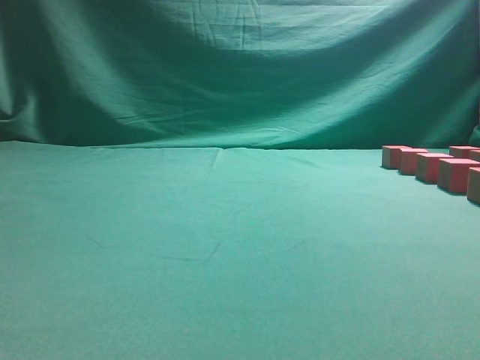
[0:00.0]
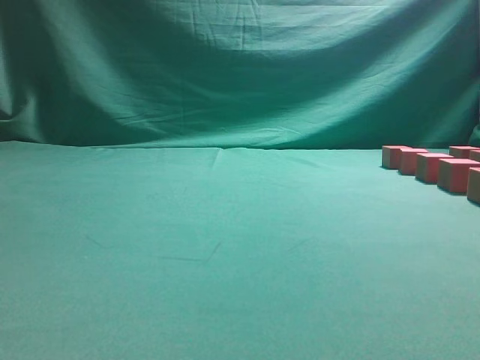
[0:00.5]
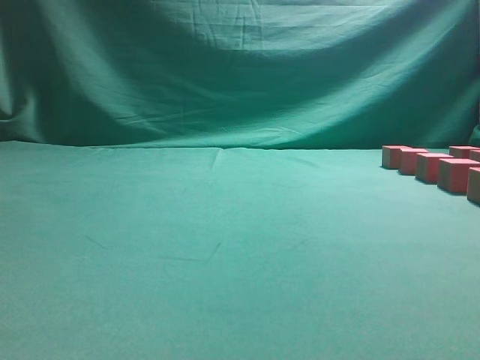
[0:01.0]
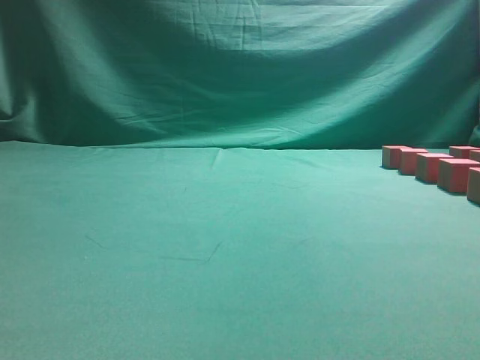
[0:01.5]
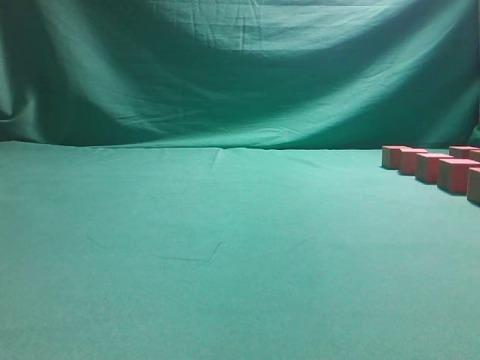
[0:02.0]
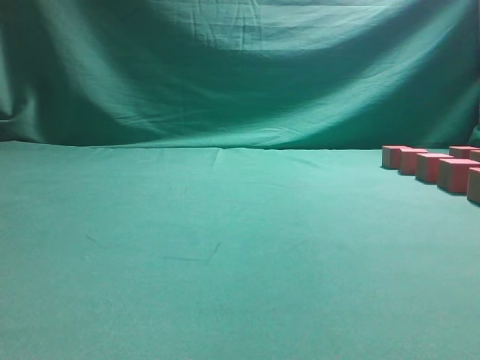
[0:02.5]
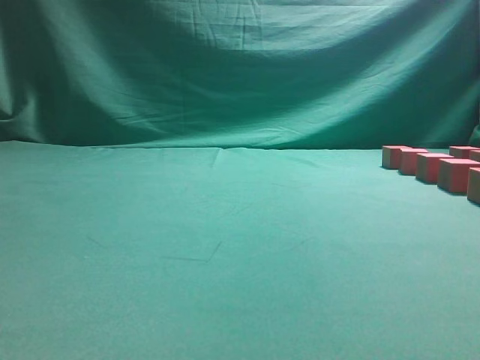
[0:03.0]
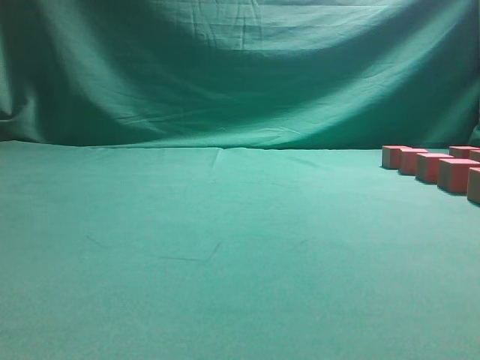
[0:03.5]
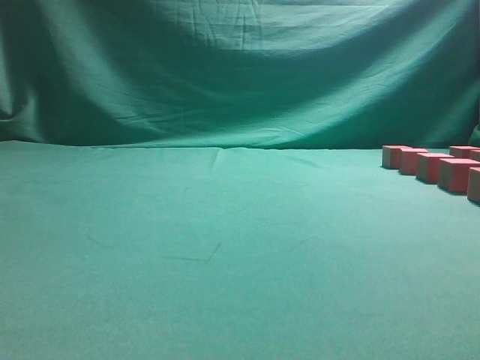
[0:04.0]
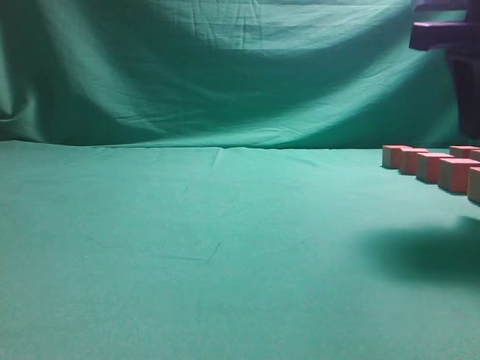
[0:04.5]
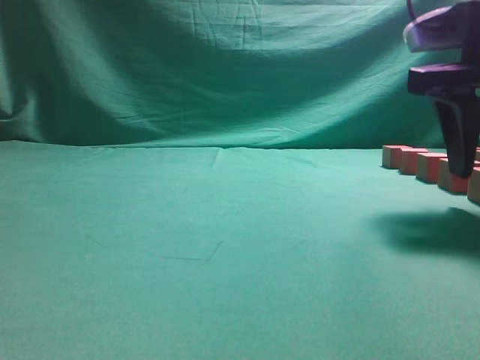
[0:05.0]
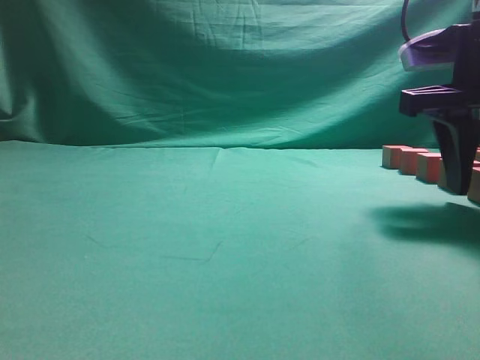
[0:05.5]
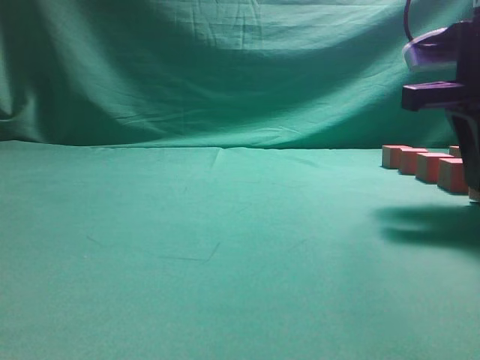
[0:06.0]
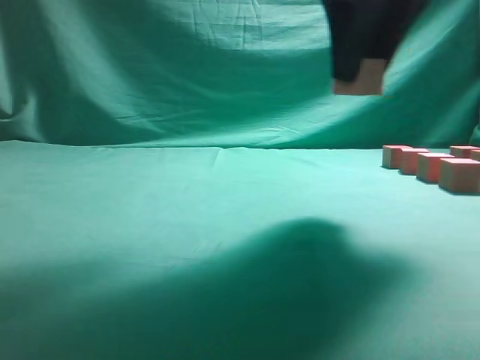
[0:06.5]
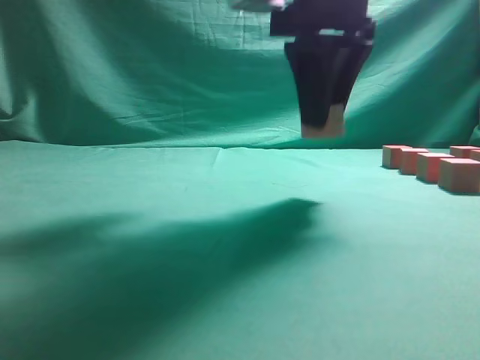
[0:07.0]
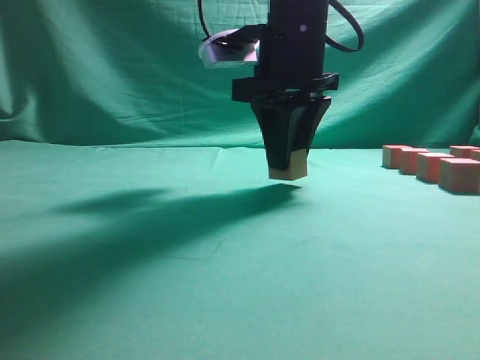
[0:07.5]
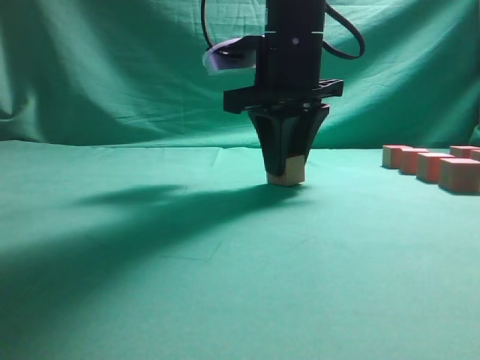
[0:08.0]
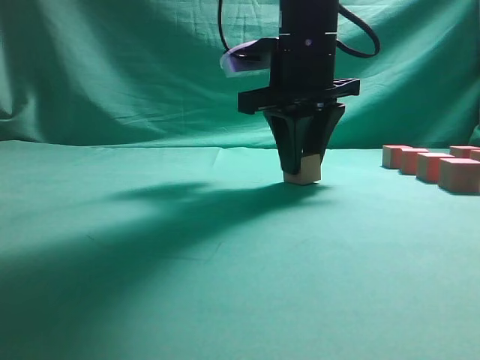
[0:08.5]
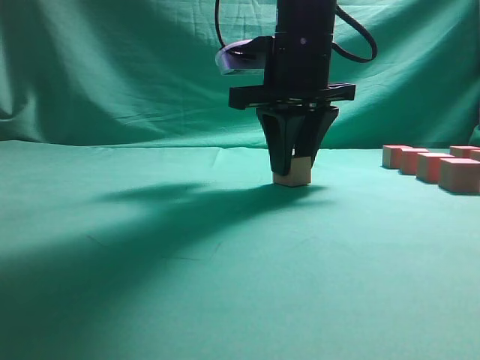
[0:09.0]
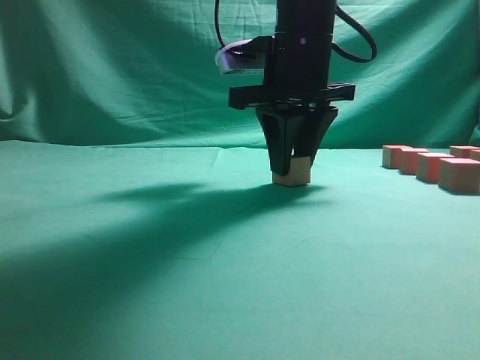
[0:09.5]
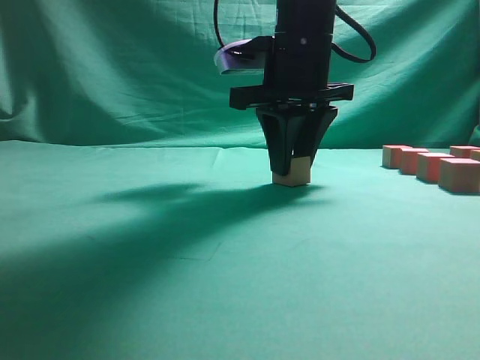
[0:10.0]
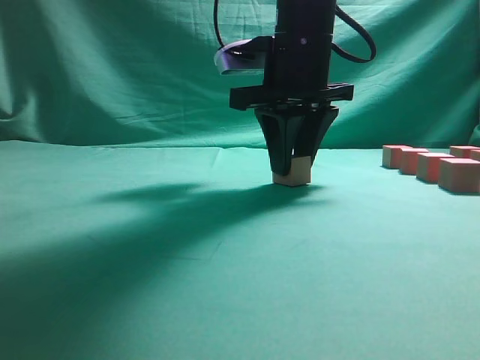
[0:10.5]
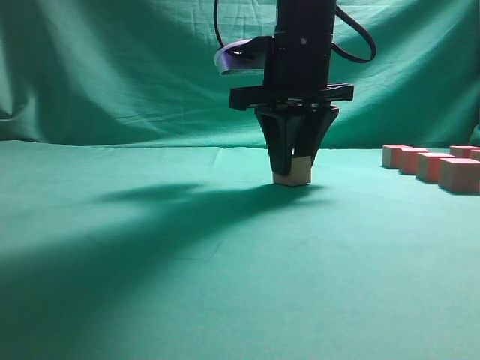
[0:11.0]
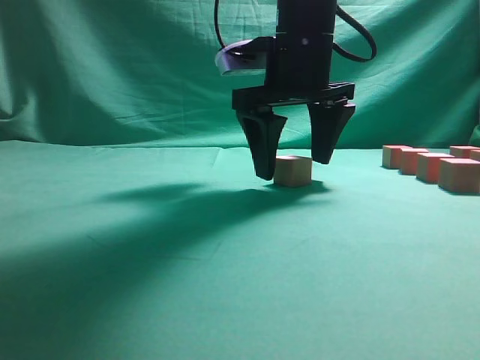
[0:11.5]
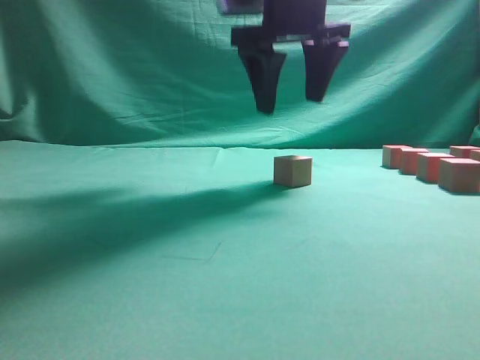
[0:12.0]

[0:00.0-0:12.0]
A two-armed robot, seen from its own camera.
Task of the whole recording: pick up the multiple cubes in two columns one by one and place them in another position on the table.
Step, 0:00.0 to 0:06.0: Pick up the block on the table.
0:04.0 to 0:06.0: The right gripper shifts about 10 cm forward and downward, and opens.
0:06.0 to 0:08.0: The right gripper is displaced to the left and forward by roughly 15 cm.
0:08.0 to 0:10.0: There are only small adjustments of the grippers.
0:10.0 to 0:12.0: The right gripper shifts approximately 5 cm upward, and opens up.

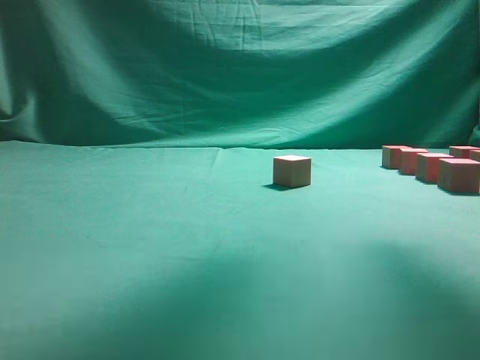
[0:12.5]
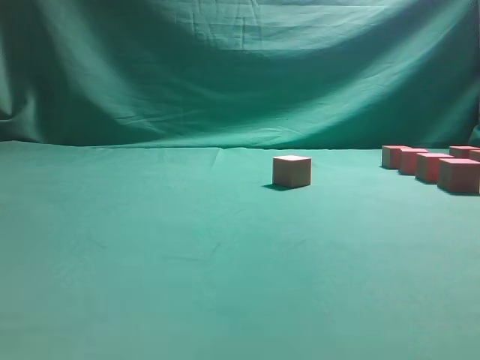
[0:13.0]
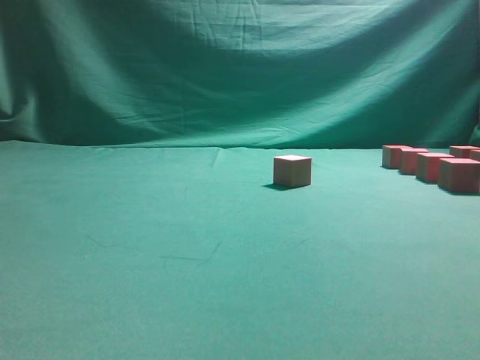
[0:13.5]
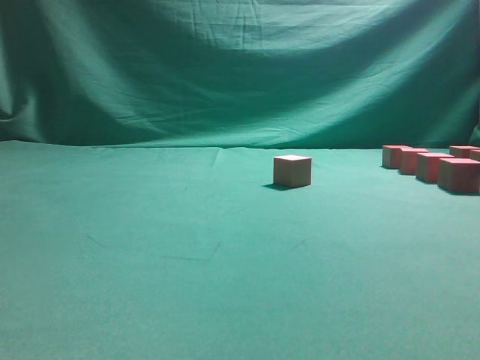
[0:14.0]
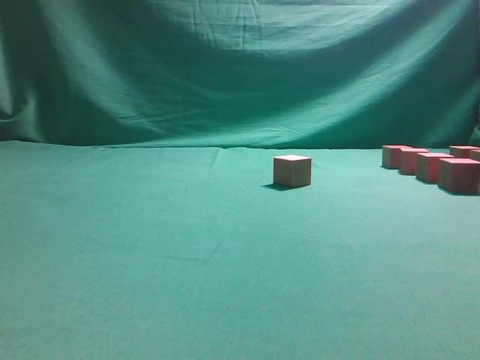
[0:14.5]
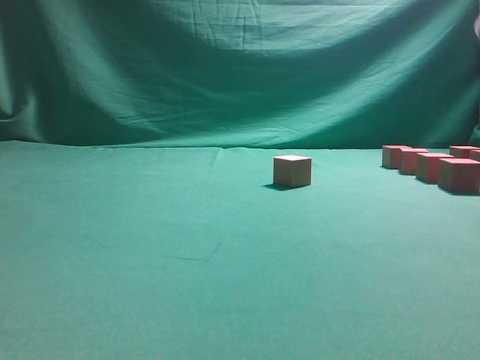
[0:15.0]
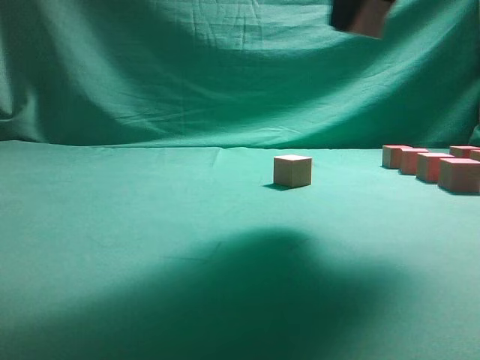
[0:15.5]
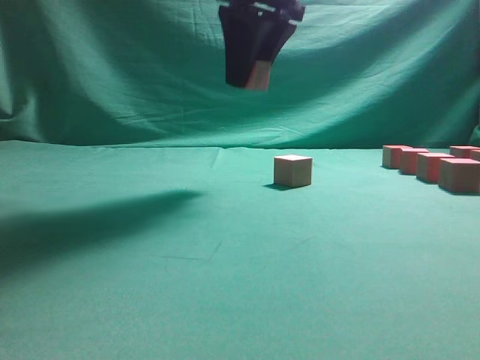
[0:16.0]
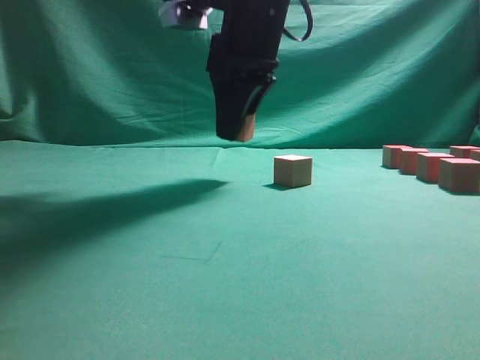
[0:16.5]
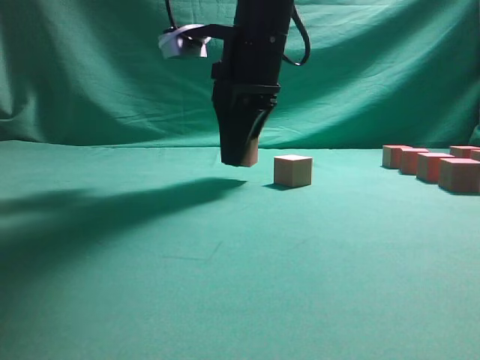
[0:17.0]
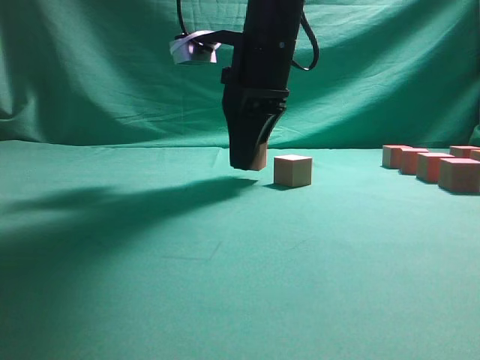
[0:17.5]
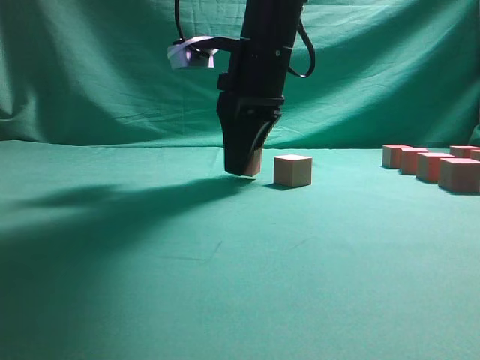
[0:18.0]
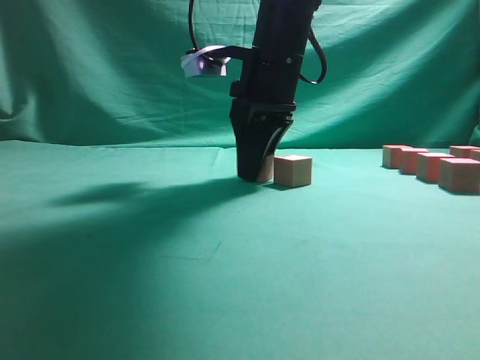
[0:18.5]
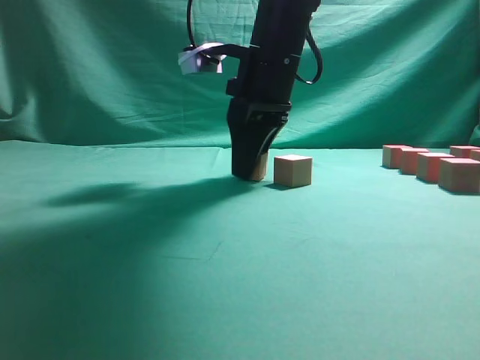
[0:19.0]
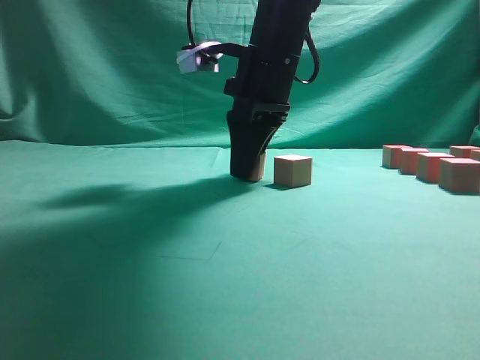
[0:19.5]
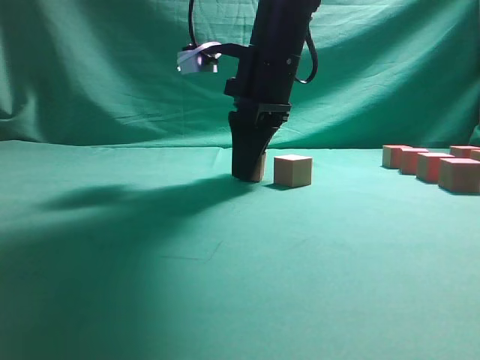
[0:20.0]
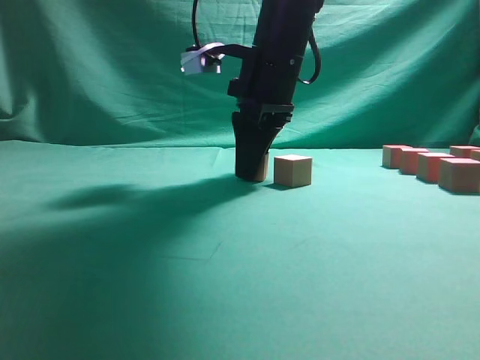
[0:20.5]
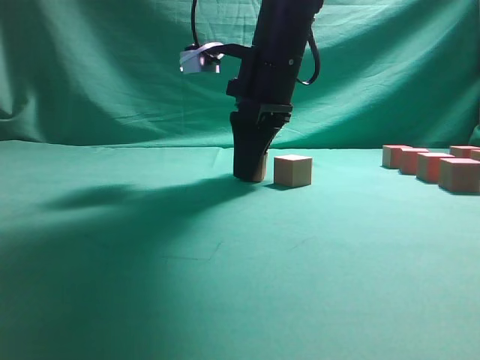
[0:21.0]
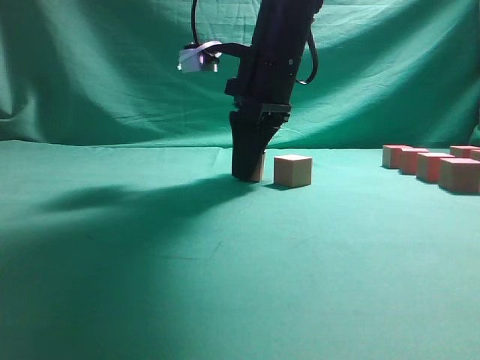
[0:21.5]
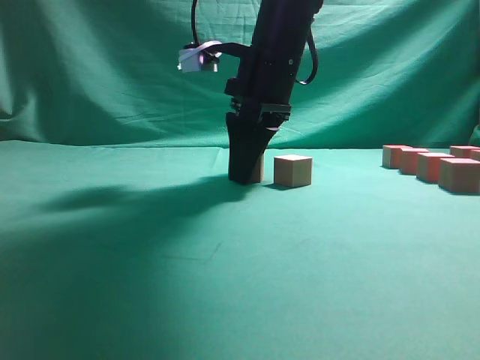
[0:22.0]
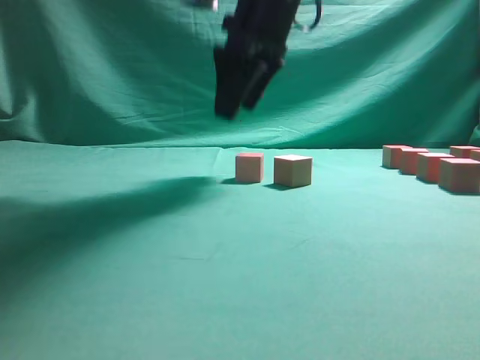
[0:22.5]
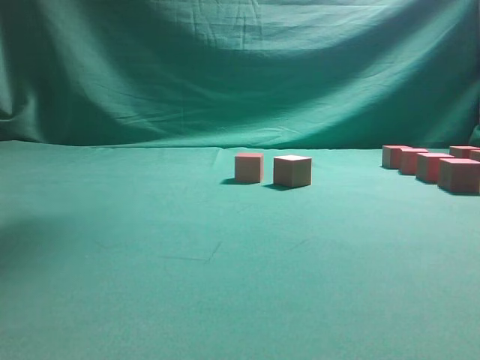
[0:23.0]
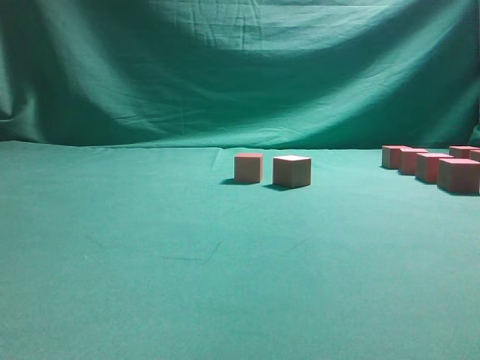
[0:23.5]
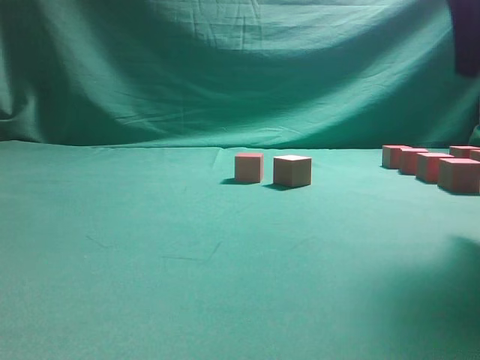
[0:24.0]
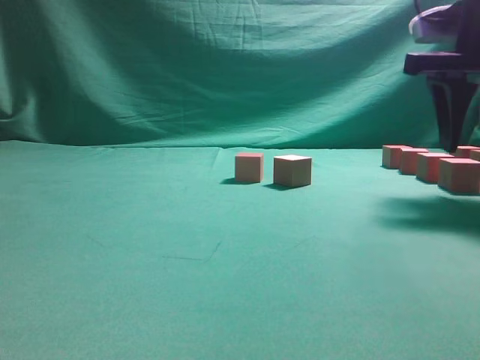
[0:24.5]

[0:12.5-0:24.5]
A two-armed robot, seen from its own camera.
Task of the whole recording: pick up the multiple cubes in two columns one by one and place them in another position on the table.
Step, 0:12.5 to 0:14.0: Pick up the block on the table.
Step, 0:14.5 to 0:22.5: Place the block at the correct position to assemble the letter S.
0:12.5 to 0:14.5: The right gripper travels downward and to the right by approximately 25 cm, and closes its fingers.
0:14.5 to 0:16.5: The right gripper goes roughly 25 cm to the left.
0:18.5 to 0:20.5: The grippers stay close to where they were, moving slightly.
0:20.5 to 0:22.5: The right gripper travels upward by some 5 cm, and opens up.
0:22.5 to 0:24.5: The right gripper travels to the right by some 20 cm, and travels upward and back again, approximately 15 cm each way.

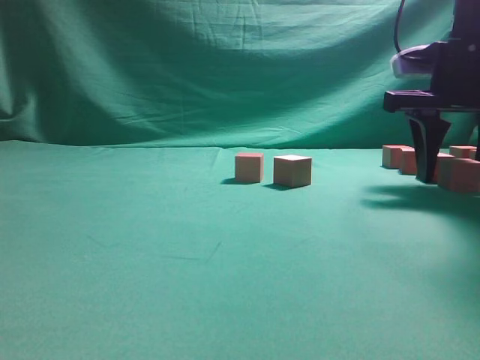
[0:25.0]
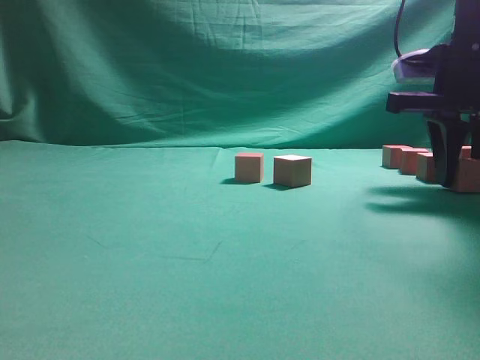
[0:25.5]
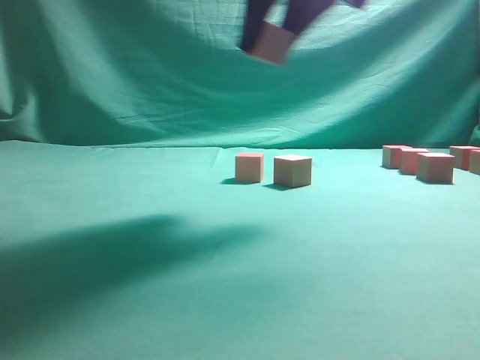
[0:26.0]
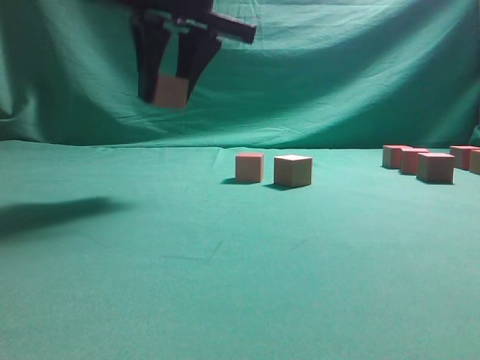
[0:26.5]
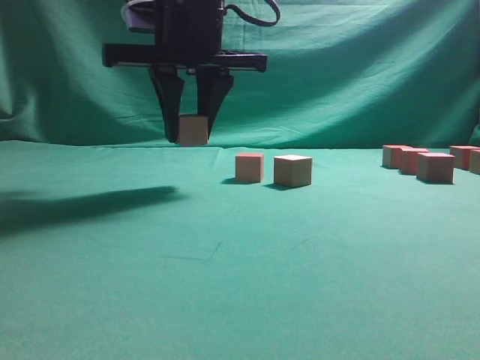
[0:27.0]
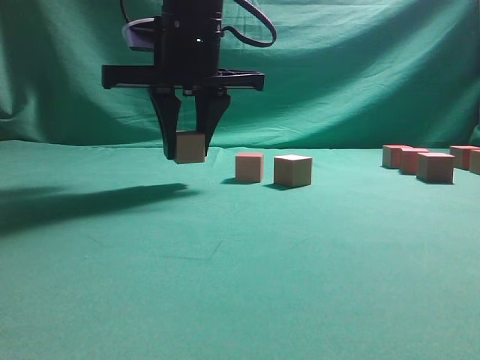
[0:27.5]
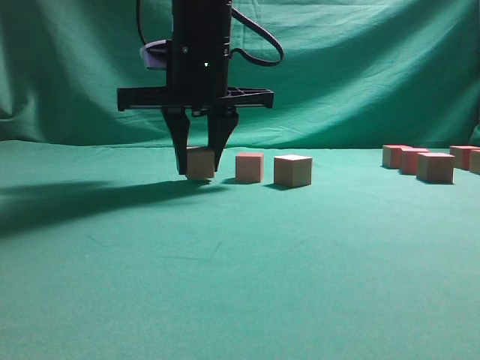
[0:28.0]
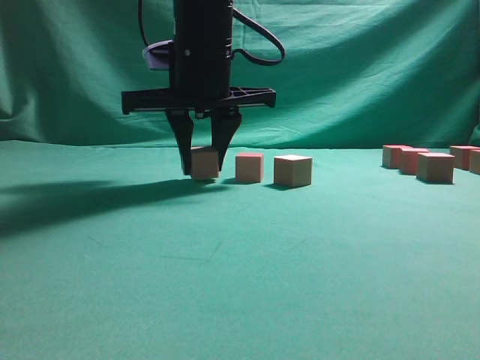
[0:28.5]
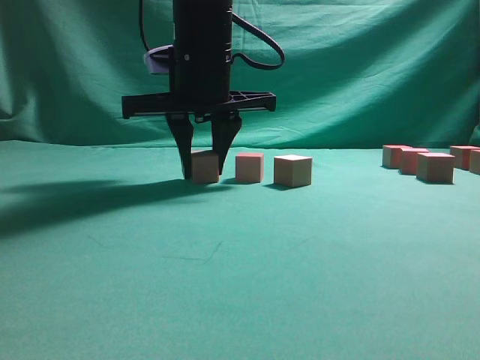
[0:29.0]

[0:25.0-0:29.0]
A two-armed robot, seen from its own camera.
Task of the whole recording: pick up the multiple cubes in two columns one by one and place them in another position on the table.
0:25.0 to 0:27.0: The right gripper heads to the left, covering roughly 25 cm.
0:27.0 to 0:29.0: The grippers move only a little.
